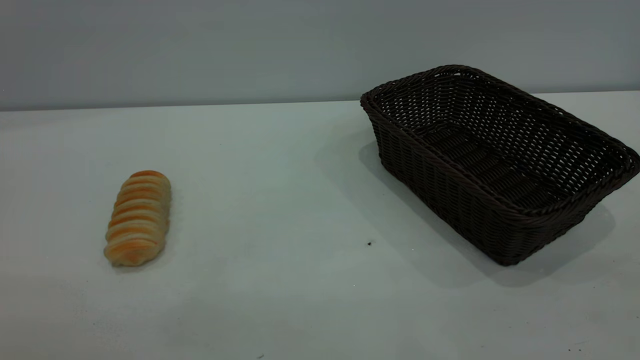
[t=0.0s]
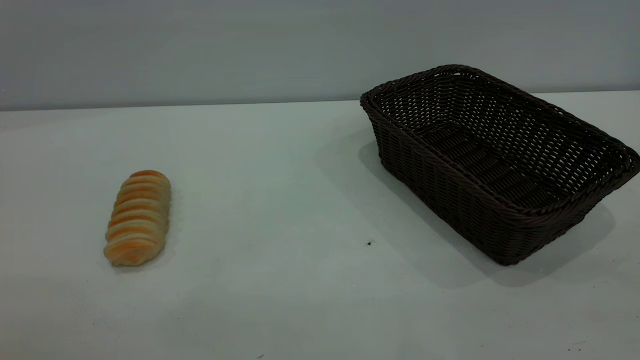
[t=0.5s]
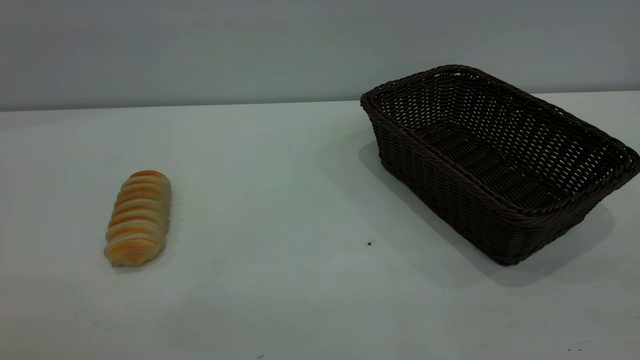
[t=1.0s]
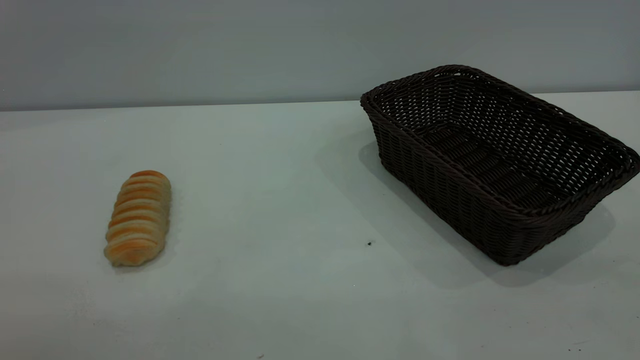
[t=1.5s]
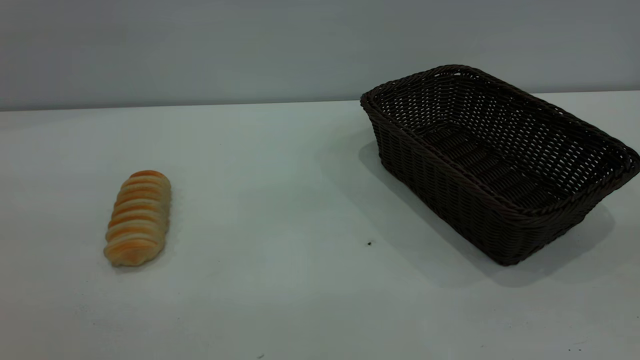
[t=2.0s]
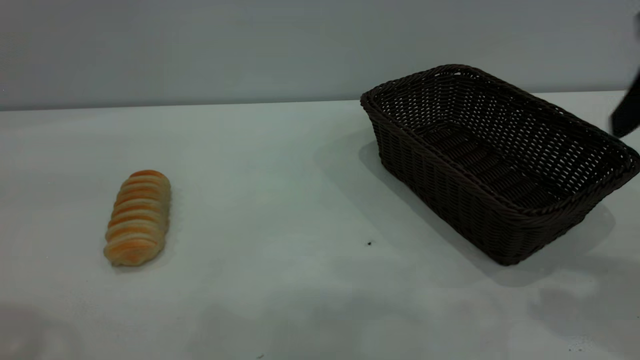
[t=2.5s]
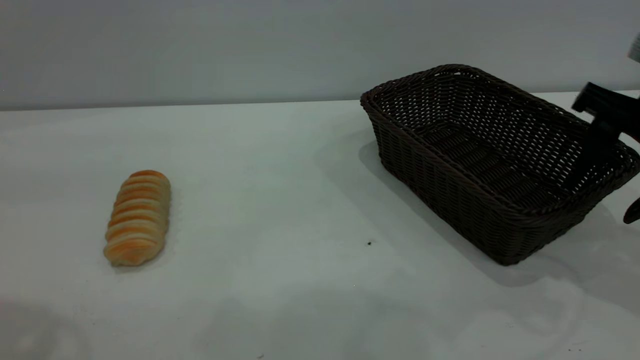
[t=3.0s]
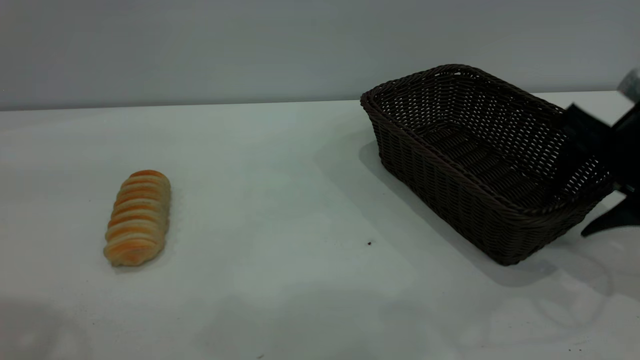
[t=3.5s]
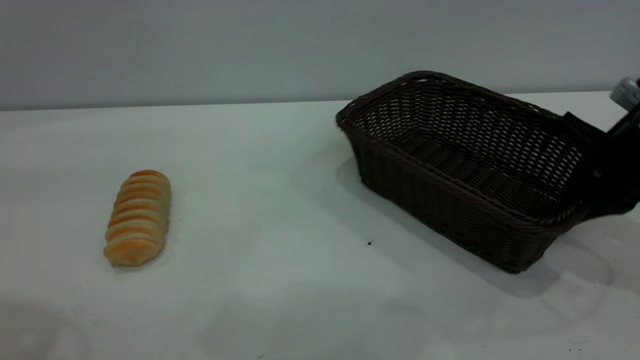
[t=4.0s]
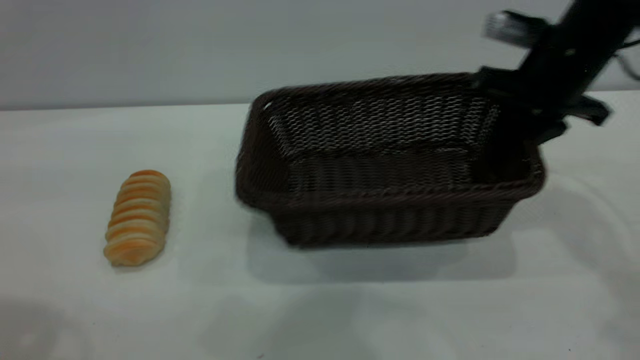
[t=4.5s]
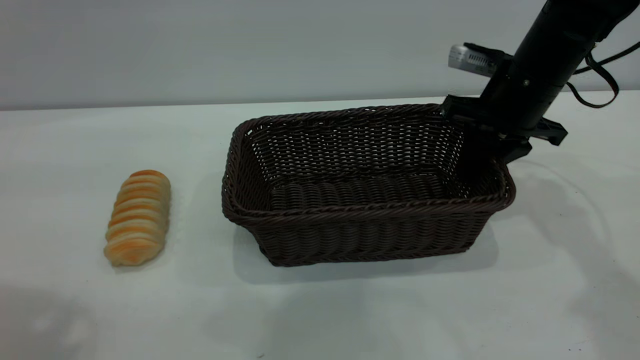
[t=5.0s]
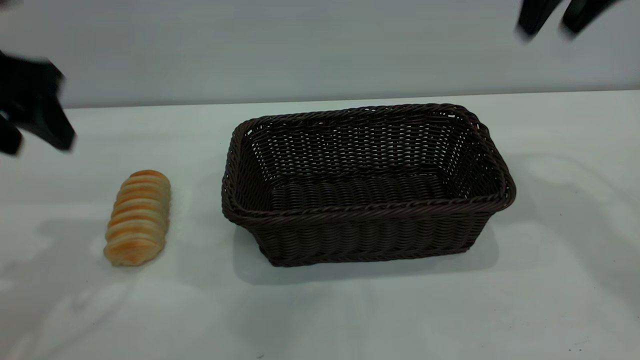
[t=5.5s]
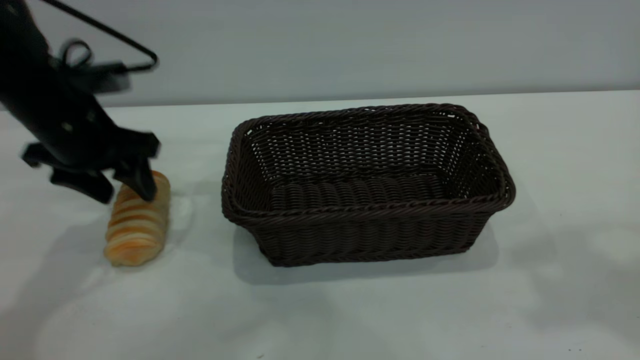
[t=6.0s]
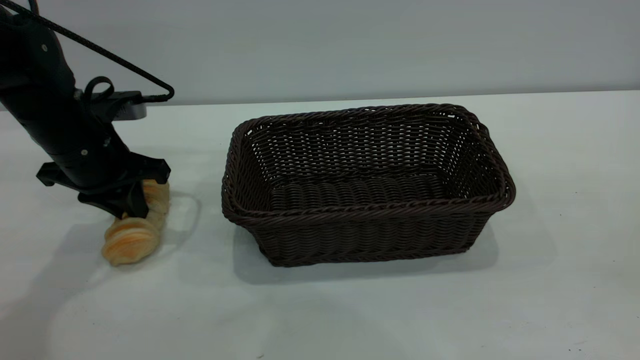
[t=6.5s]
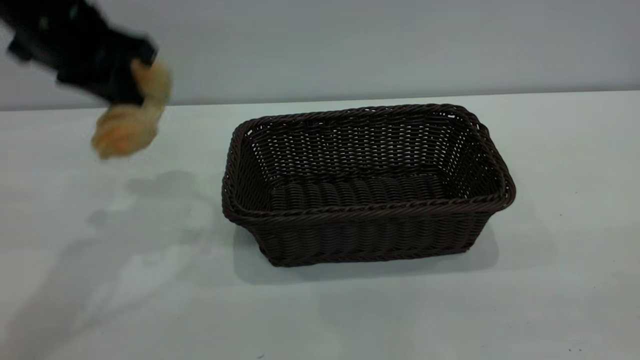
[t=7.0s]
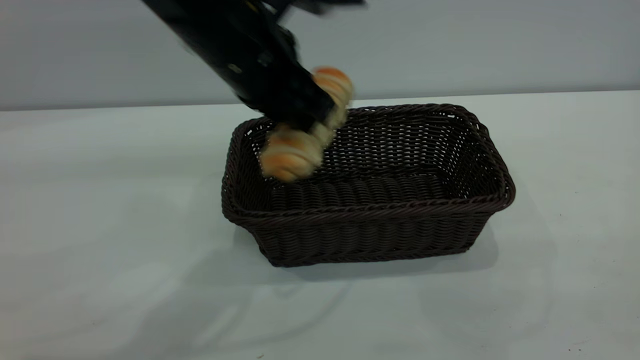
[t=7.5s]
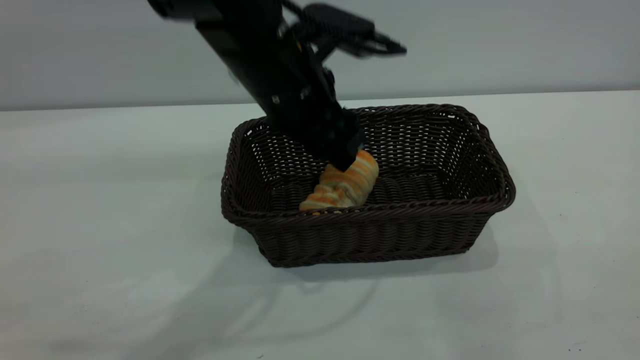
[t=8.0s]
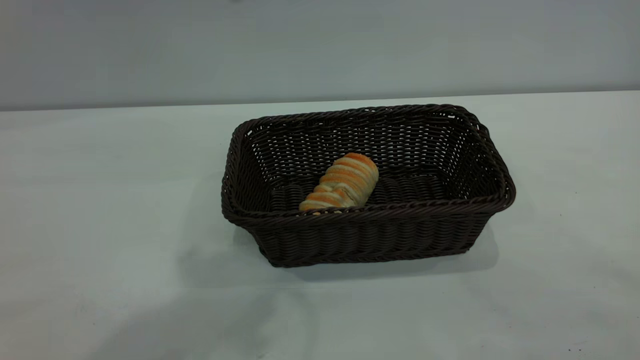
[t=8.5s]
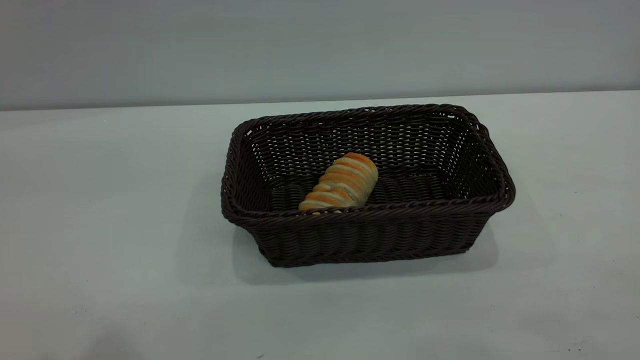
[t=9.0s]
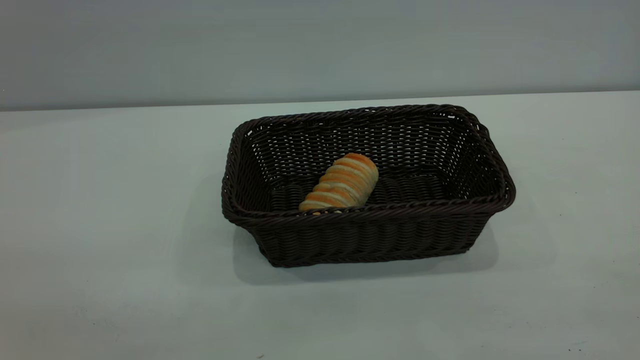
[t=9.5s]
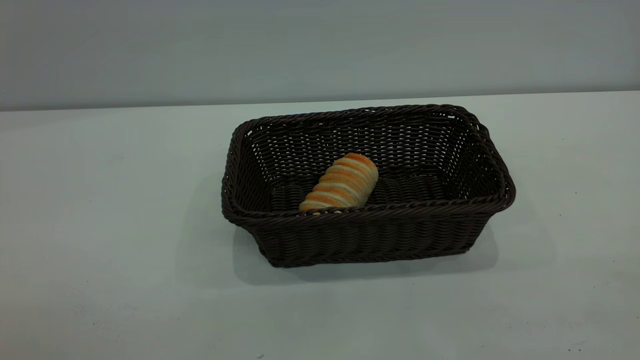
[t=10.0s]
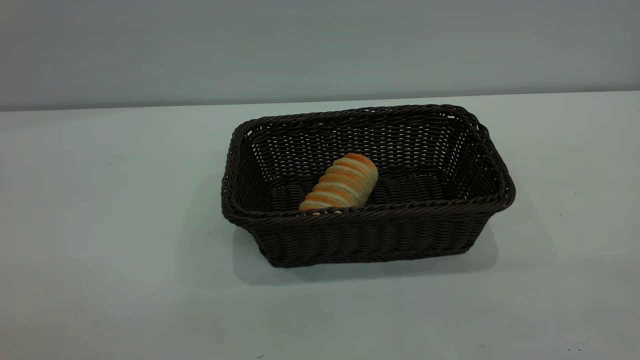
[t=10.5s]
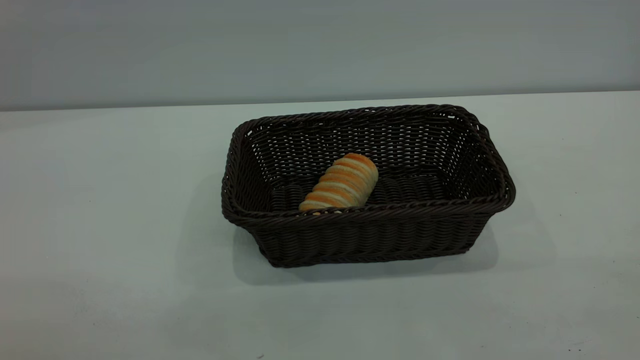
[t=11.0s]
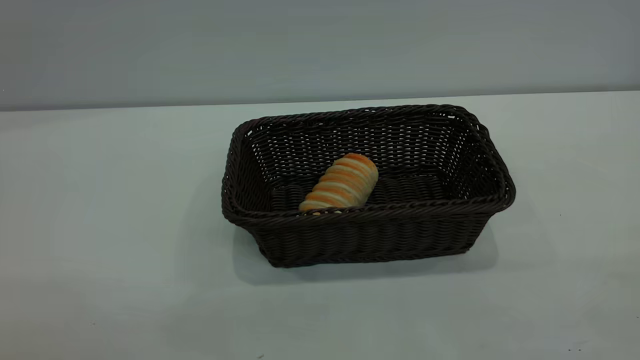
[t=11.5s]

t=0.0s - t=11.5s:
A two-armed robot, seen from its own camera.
Task of the whole recording: One hand grasps the black basket and places it in the middle of the table, while the other hand picks up the long bread and puts it into the black basket.
Step, t=0.0s - t=5.0s: Move the basket to the center of view.
Step, t=7.5s - t=8.0s: place the bread into the basket.
t=2.0s - t=4.0s: The left gripper is displaced forward by about 10 cm; the right gripper goes some 35 cm forward and downward, and closes.
t=4.0s - t=6.0s: The left gripper moves downward and forward, some 30 cm. The right gripper travels upward by approximately 30 cm, and opens.
t=6.0s - t=7.5s: The right gripper moves backward and downward, some 30 cm. Meanwhile the left gripper goes approximately 20 cm to the right, and closes its fingers.
t=7.5s - t=9.5s: The left gripper shifts some 35 cm backward and to the left, and opens up.
